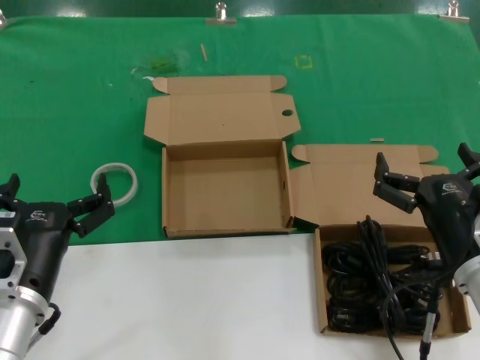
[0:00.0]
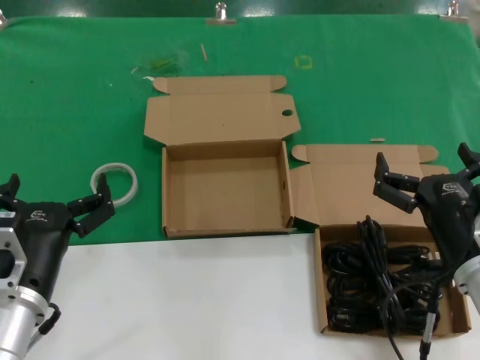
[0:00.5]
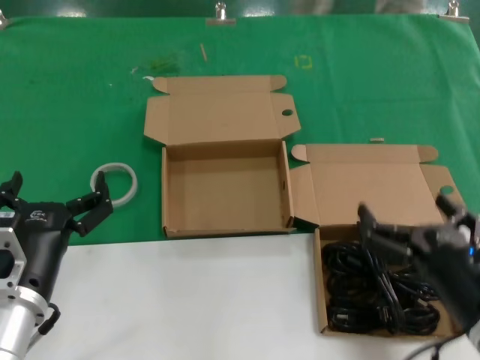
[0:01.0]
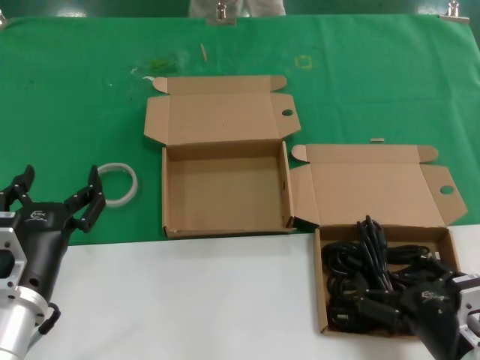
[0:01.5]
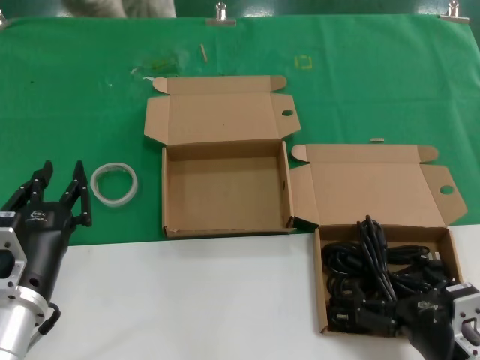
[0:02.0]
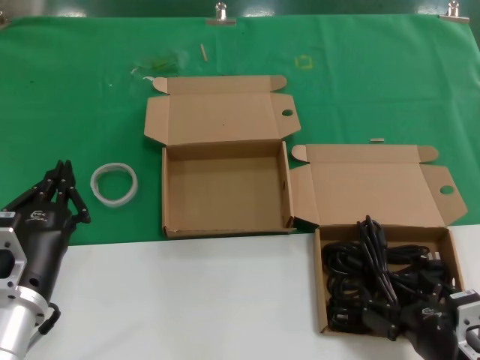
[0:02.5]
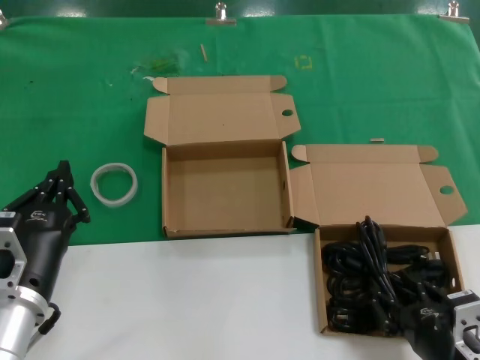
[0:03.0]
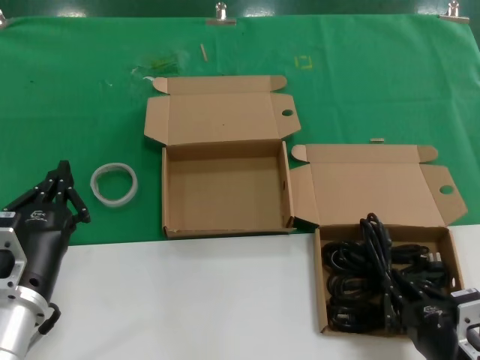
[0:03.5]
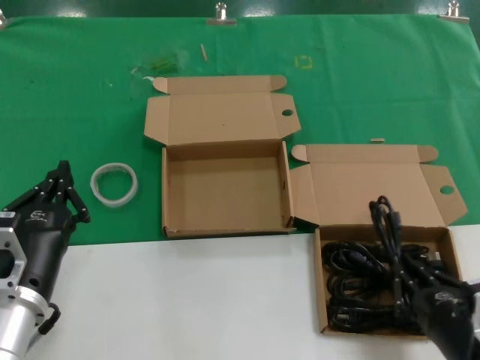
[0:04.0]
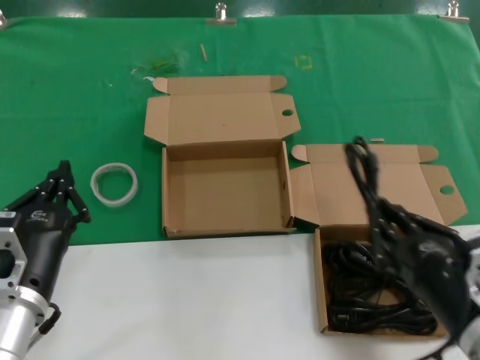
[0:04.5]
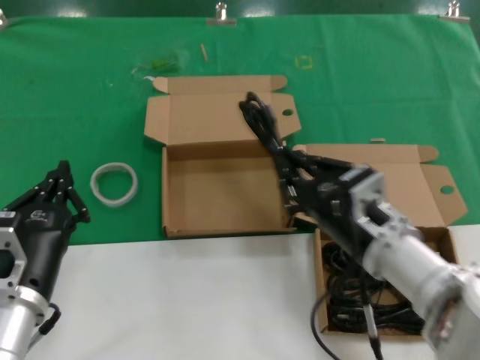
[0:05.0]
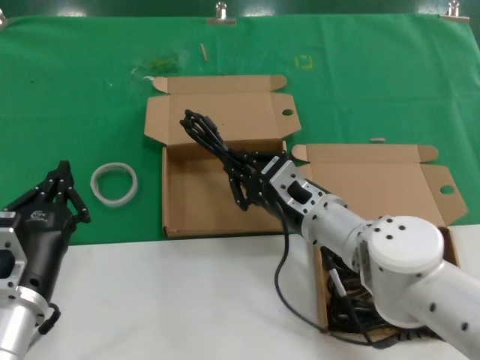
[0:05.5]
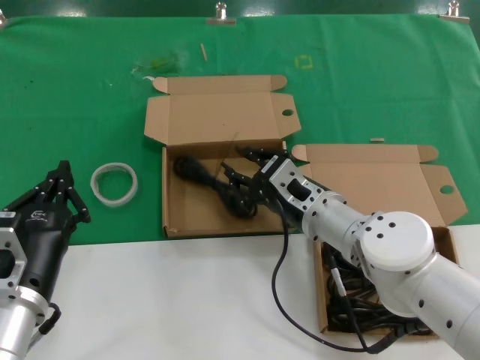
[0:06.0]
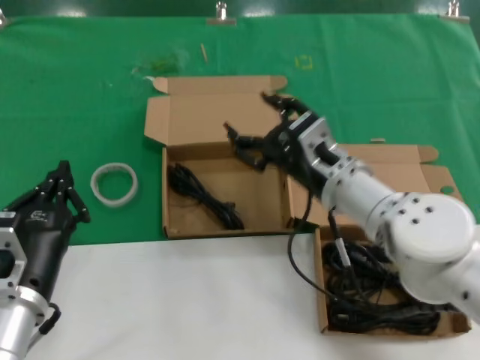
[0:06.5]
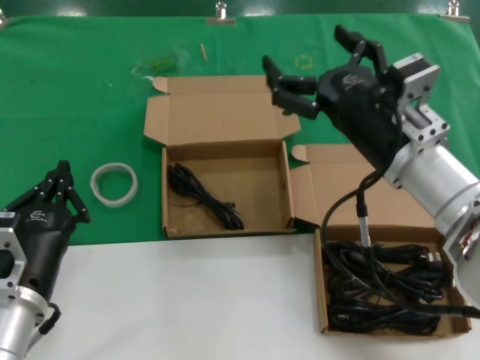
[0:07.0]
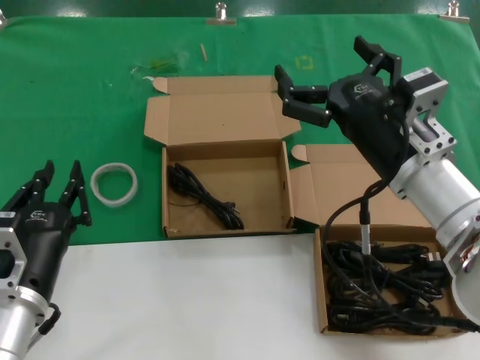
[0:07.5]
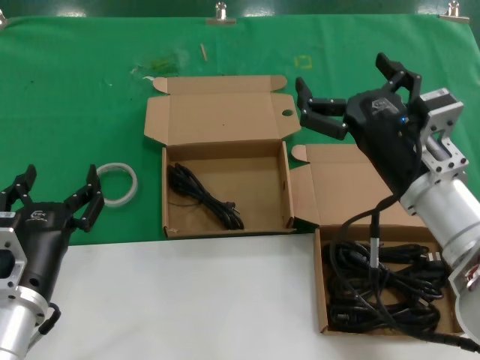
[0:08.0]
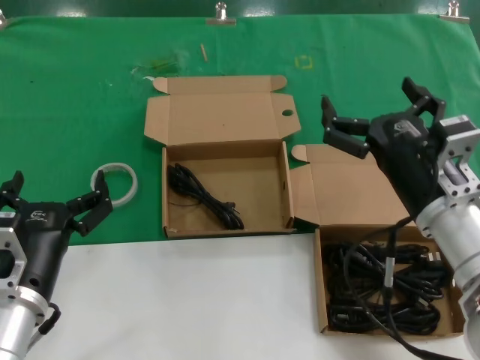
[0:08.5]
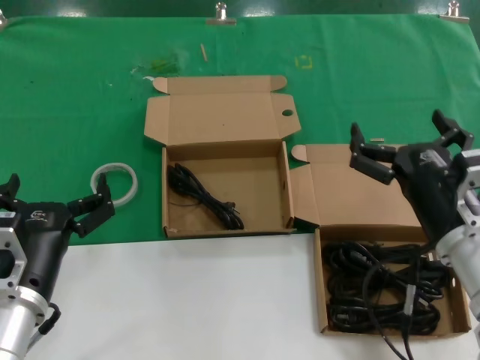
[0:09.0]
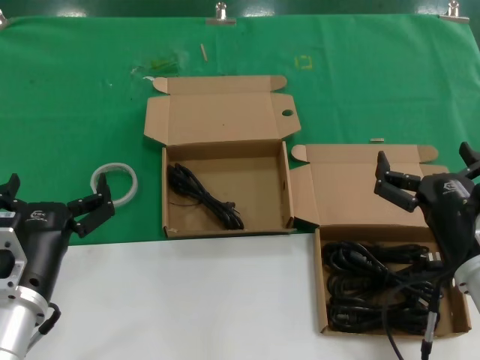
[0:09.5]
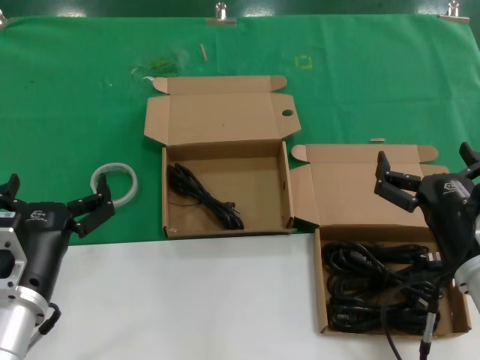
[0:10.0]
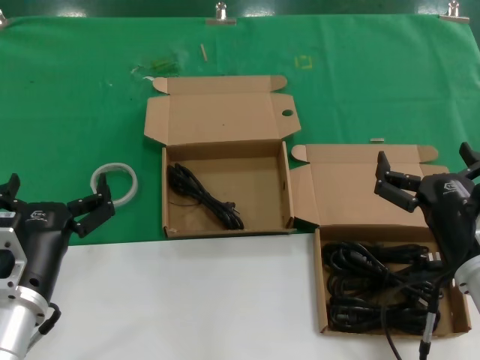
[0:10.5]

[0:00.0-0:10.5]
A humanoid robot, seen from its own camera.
Task of the whole recording: Pick up the power cord from the box containing it and place it in another box.
Step, 0:00.0 to 0:03.5: Grasp the data cable.
Step, 0:04.0 to 0:06.0: Place the data cable in the another box.
0:00.0 to 0:02.0: The right hand moves backward and downward, some 10 cm.
0:02.0 to 0:04.0: The hands move only a little.
0:04.0 to 0:06.5: The right hand heads forward and to the left, covering roughly 25 cm.
0:06.5 to 0:08.5: The right hand moves backward and to the right, some 10 cm.
0:08.5 to 0:10.5: The right hand heads downward, covering about 5 cm.
